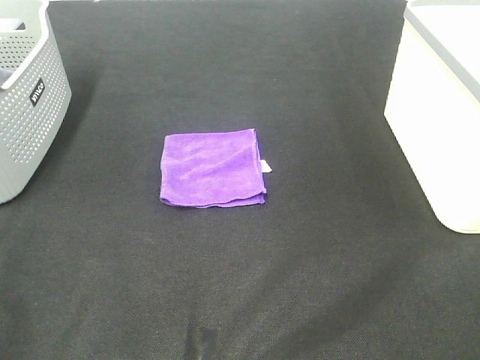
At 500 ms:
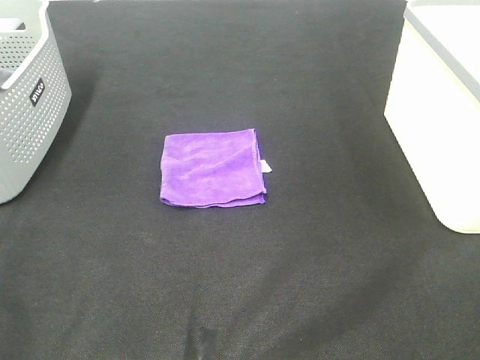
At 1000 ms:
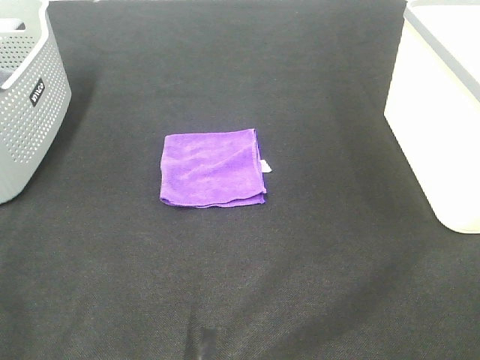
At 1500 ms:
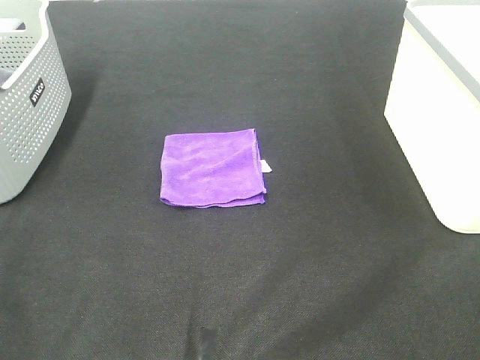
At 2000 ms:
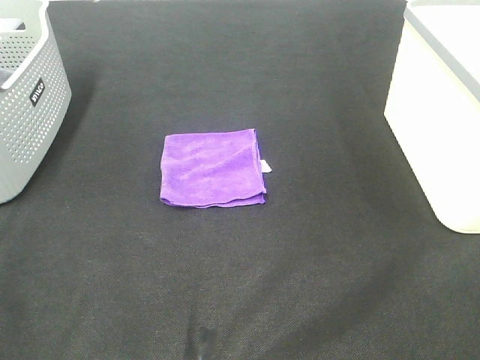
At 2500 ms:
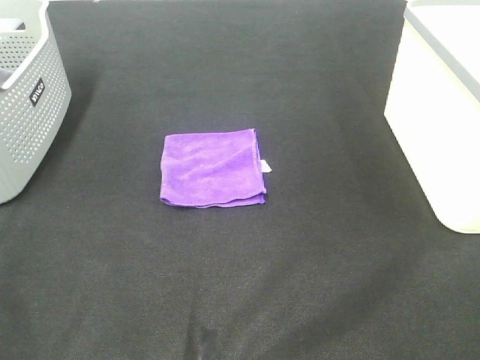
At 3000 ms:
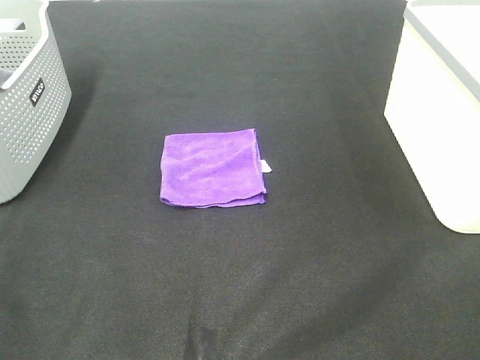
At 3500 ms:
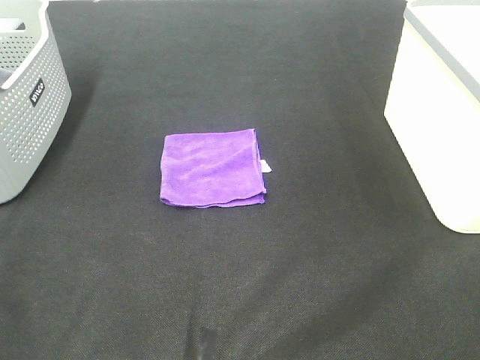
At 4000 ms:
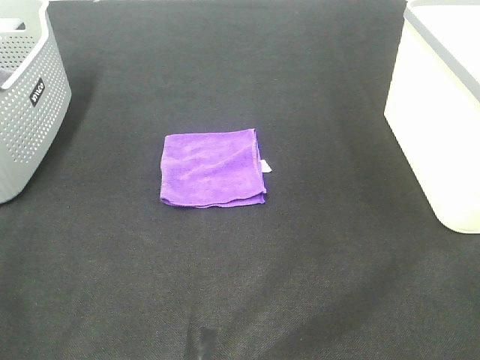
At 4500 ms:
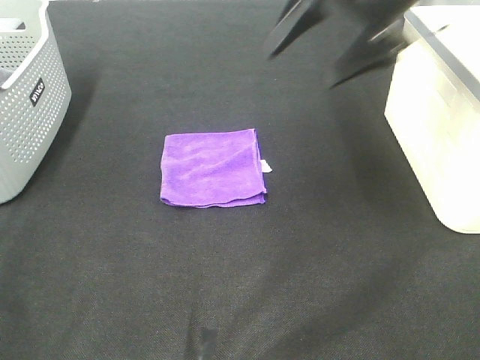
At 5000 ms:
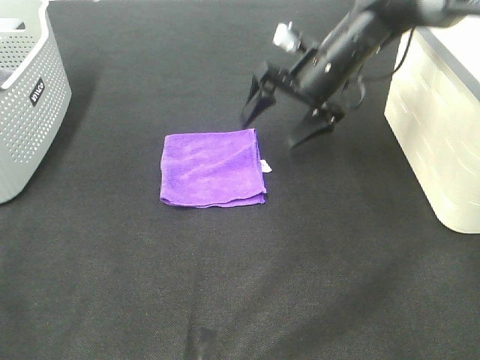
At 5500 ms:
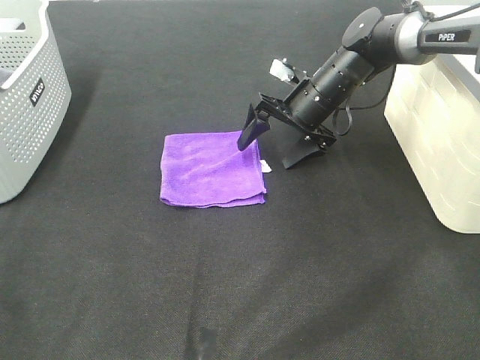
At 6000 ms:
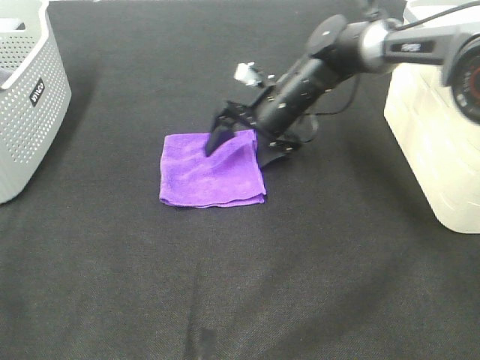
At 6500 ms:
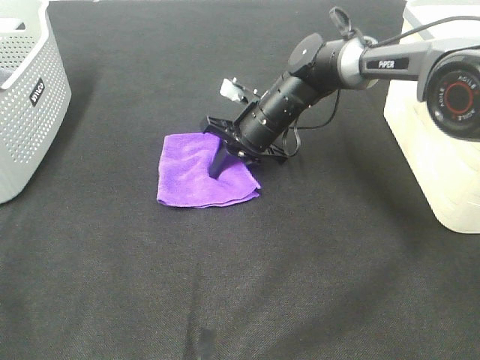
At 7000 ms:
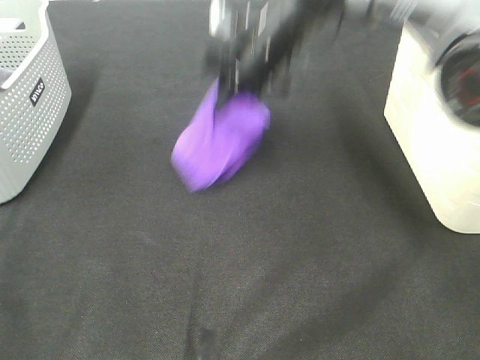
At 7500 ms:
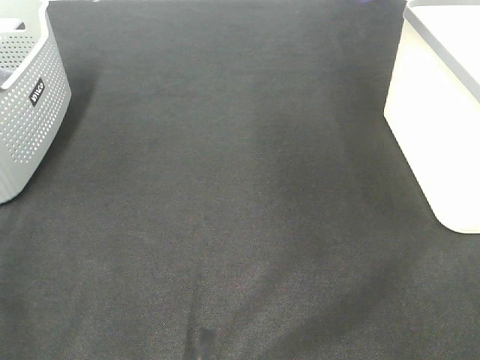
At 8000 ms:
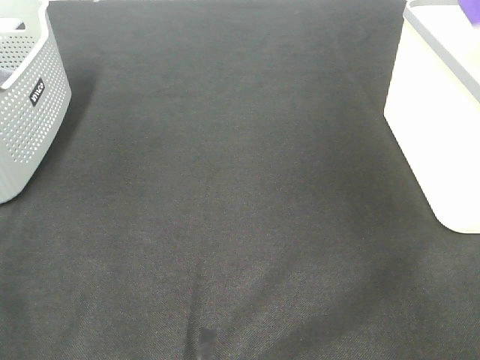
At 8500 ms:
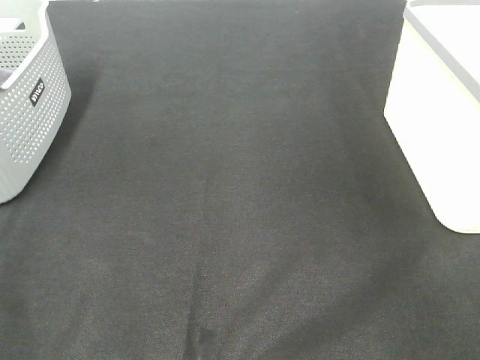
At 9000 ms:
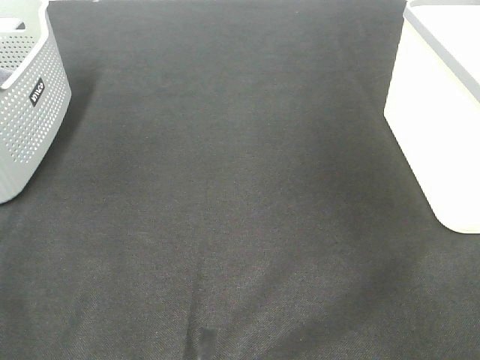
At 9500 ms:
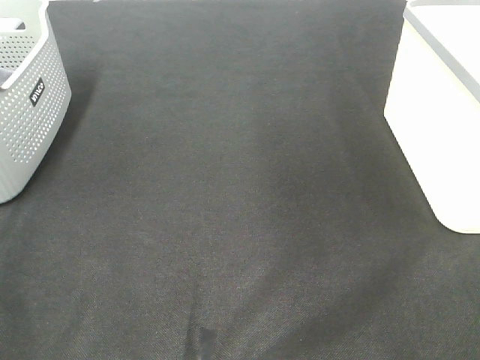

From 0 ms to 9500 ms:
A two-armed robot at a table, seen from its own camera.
Step, from 0 ms to 6500 ms: Right hand: grab the folded purple towel.
Step, from 7000 ms to 8000 ms: Right hand: place the purple towel in right basket.
From 0 ms to 2000 ms: Both grippers stay about where they are.
From 4000 ms to 5500 ms: The right gripper travels downward and forward by about 40 cm.
From 5500 ms to 7500 ms: The right gripper goes some 35 cm upward and to the right, and closes.

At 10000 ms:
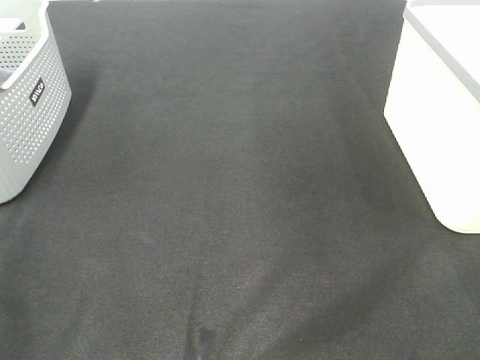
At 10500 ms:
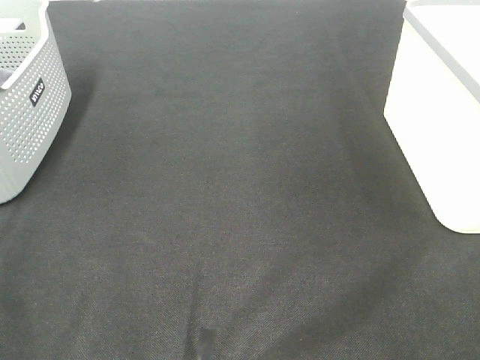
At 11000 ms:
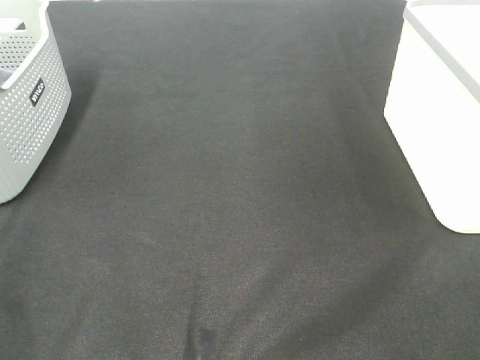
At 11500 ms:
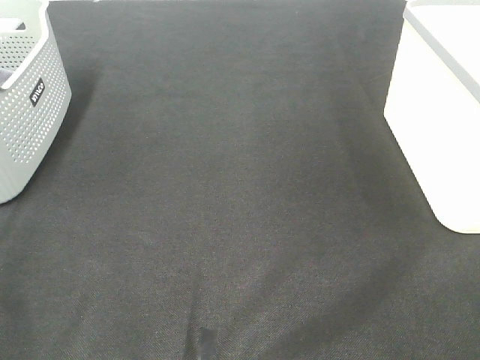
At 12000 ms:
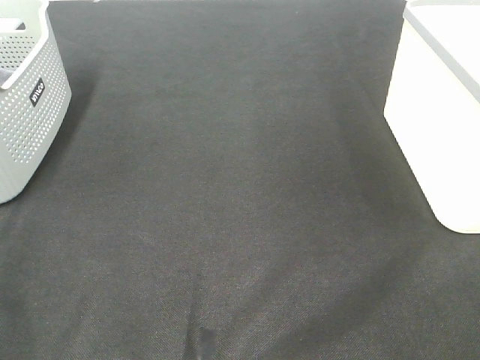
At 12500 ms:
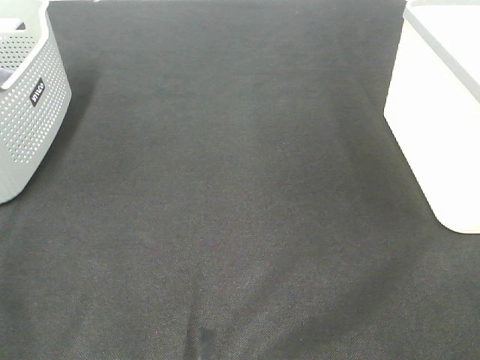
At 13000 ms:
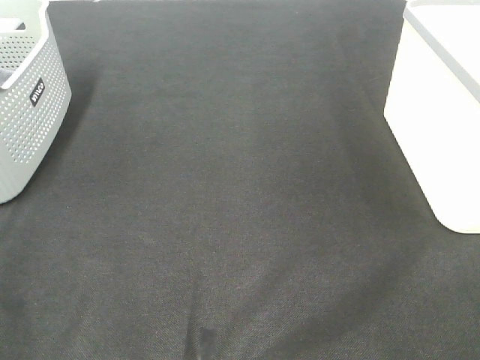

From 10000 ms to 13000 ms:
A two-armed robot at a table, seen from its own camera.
From 11500 ms to 13000 ms: The two grippers keep their place.

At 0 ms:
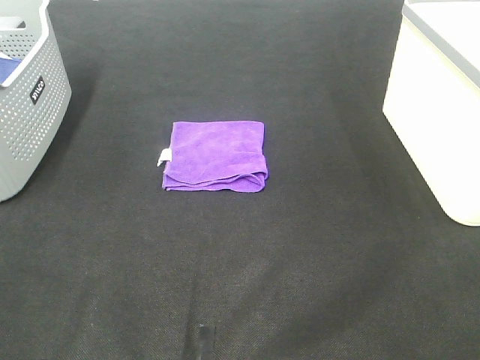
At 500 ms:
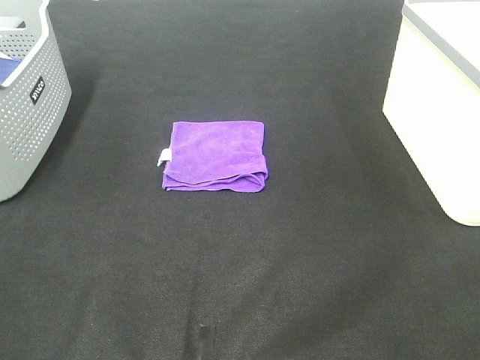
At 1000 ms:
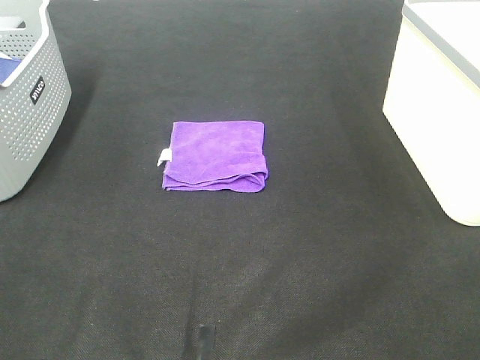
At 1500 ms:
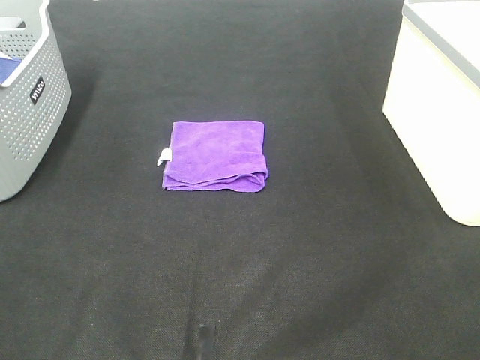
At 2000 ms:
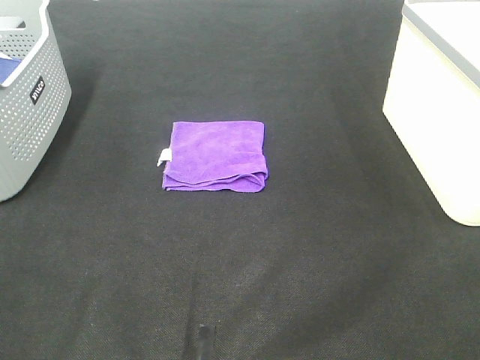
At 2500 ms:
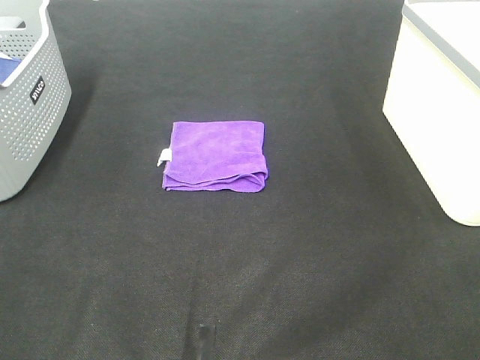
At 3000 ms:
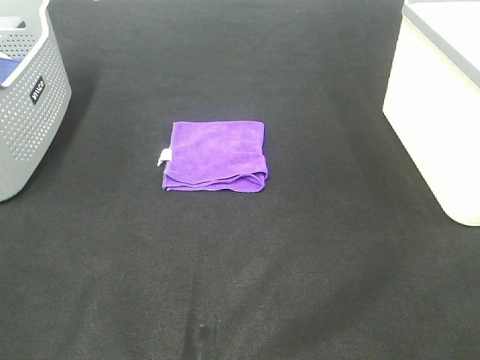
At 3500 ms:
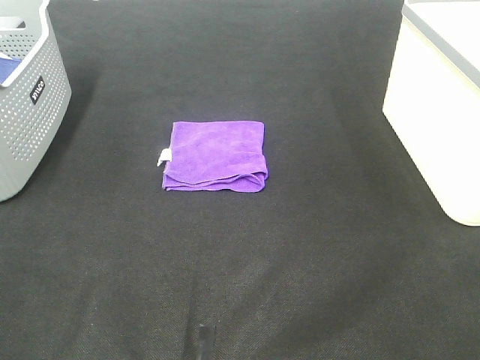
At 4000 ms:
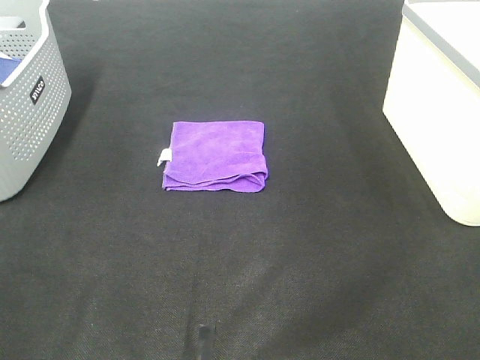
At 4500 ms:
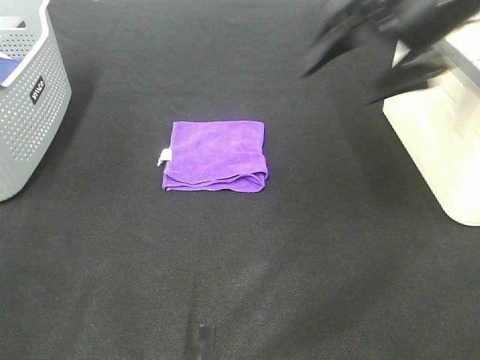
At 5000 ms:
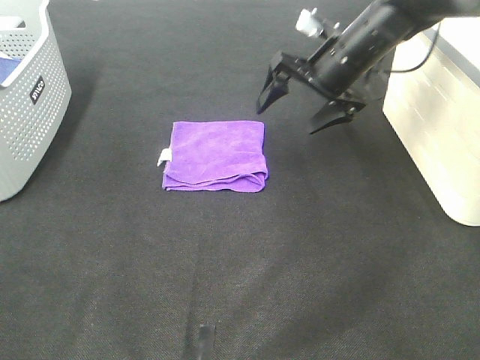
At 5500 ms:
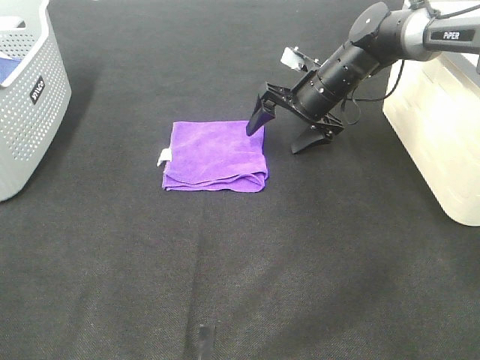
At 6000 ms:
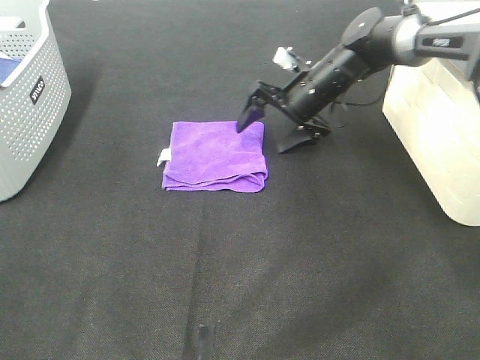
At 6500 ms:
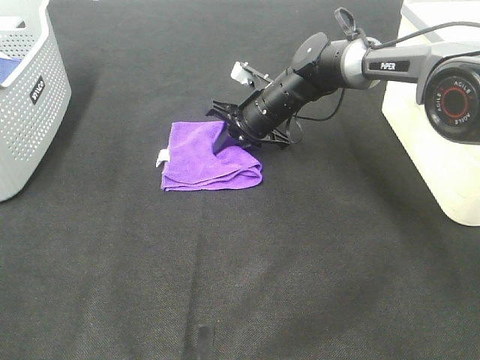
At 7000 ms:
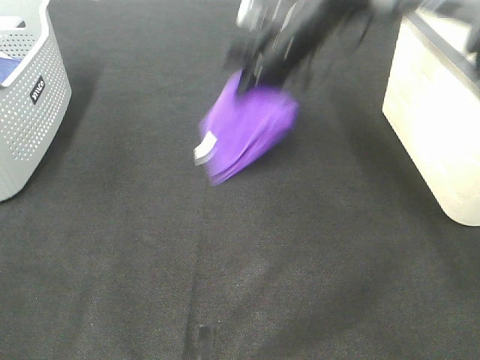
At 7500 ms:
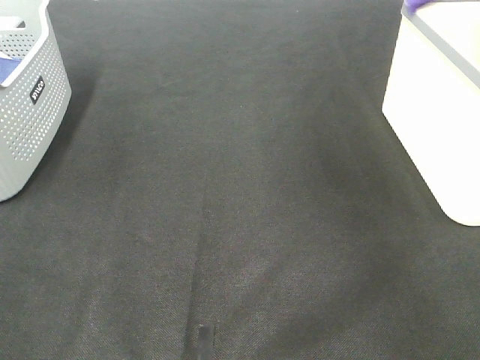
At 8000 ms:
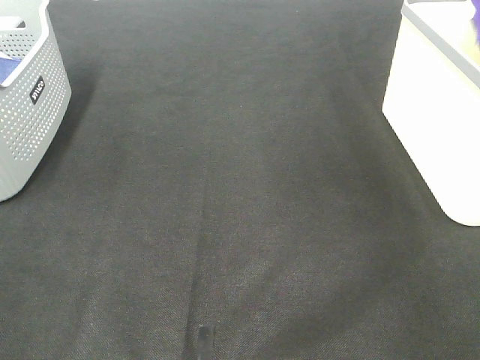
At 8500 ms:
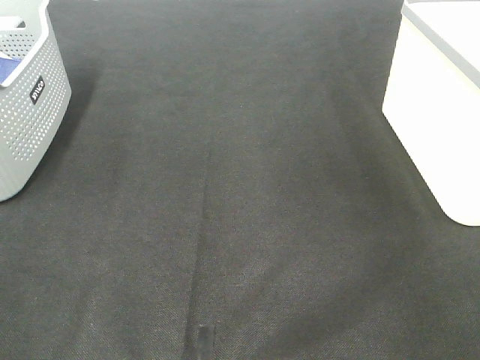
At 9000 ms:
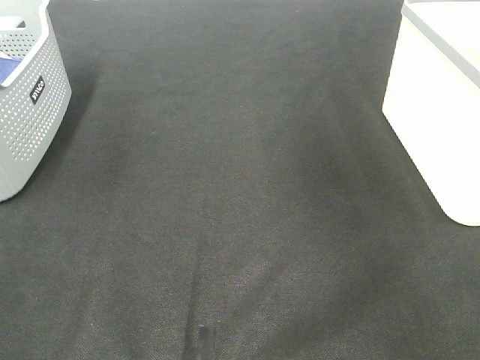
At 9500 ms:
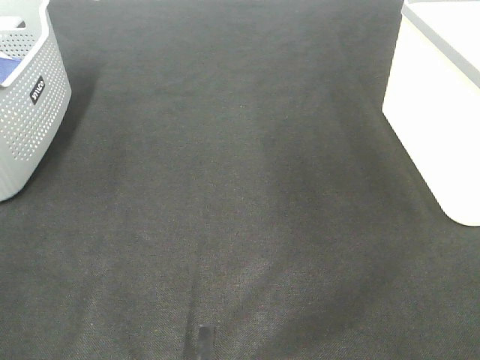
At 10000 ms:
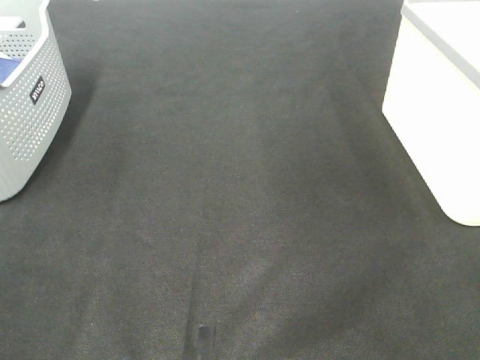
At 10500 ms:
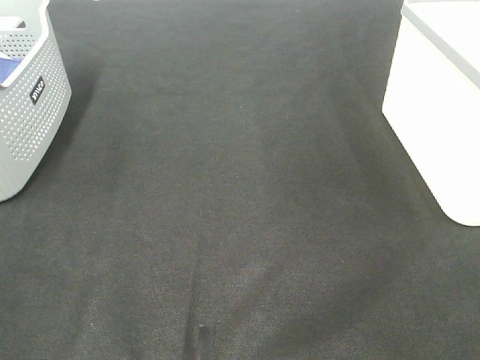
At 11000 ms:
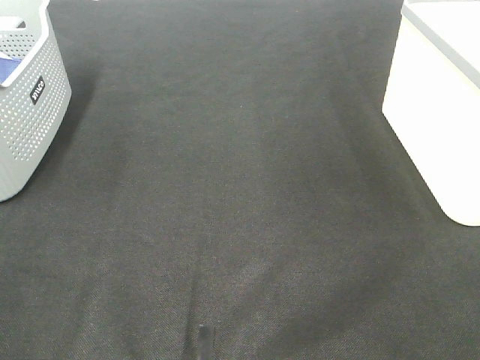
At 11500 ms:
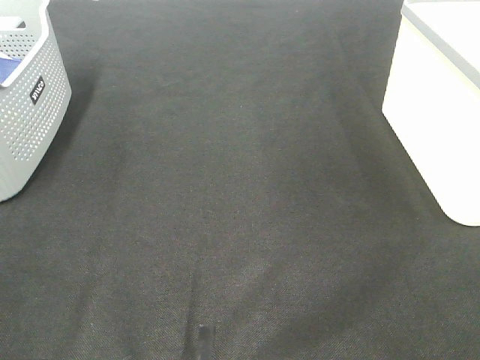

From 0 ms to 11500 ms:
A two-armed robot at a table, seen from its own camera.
Step, from 0 ms to 6500 ms: Right hand: grab the folded purple towel.
Step, from 7000 ms to 8000 ms: Right hand: place the purple towel in right basket.
From 0 ms to 2000 ms: Both grippers stay put.
From 4000 ms to 6000 ms: The right gripper travels forward, downward and to the left by some 40 cm.
From 6000 ms to 7500 ms: The right gripper heads upward and to the right, covering approximately 40 cm, and closes up.

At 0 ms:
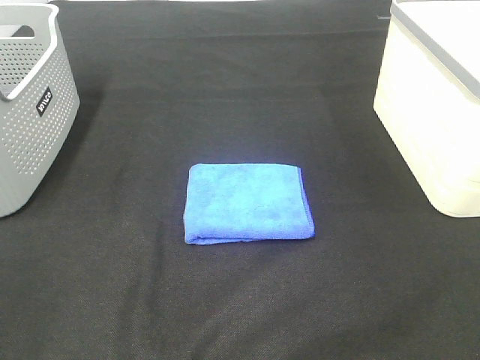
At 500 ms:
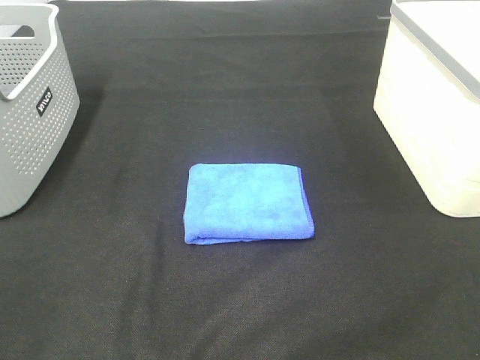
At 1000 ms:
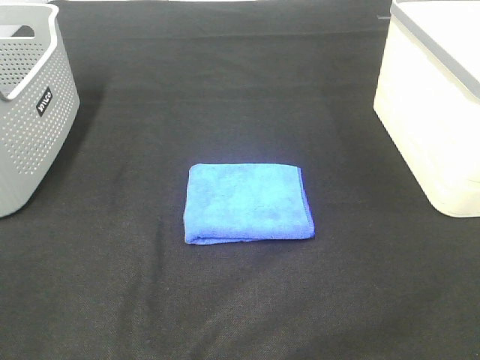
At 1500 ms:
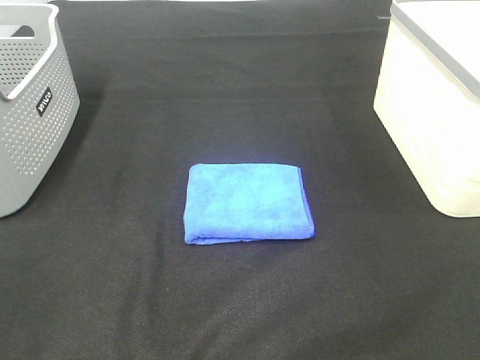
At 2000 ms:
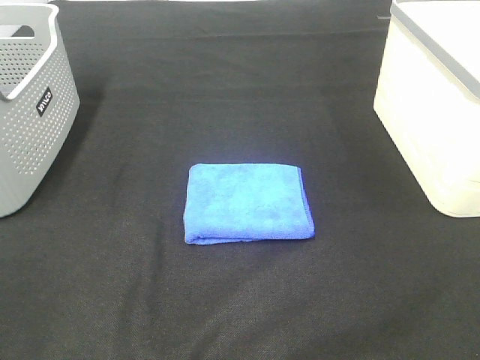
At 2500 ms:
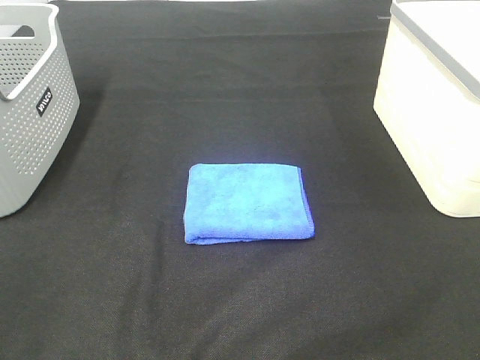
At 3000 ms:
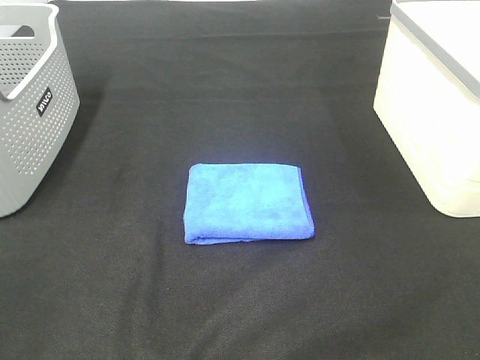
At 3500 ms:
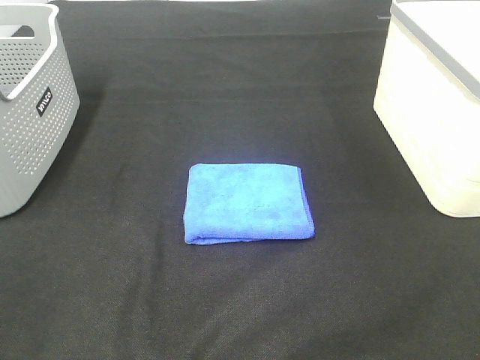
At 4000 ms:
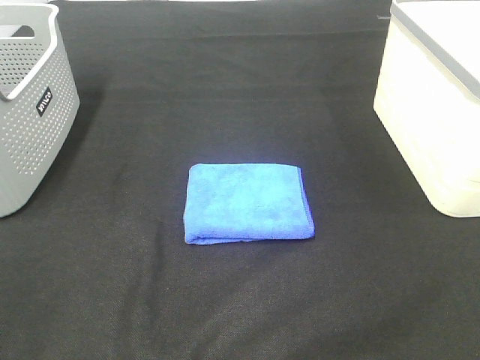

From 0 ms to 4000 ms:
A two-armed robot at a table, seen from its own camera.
From 0 ms to 2000 ms: Both grippers stay about where they are.
